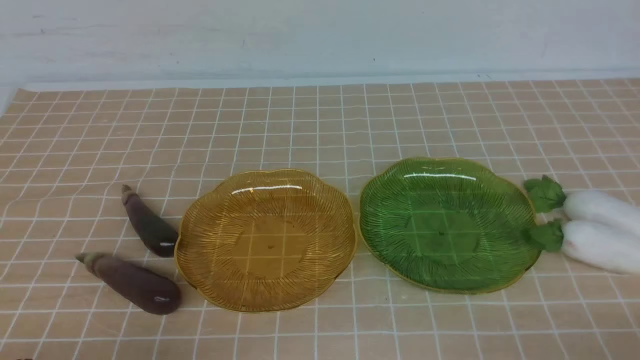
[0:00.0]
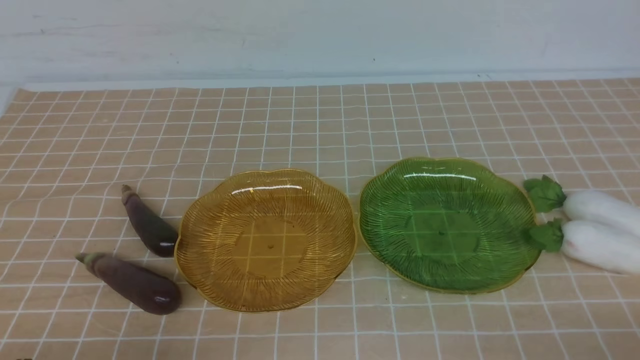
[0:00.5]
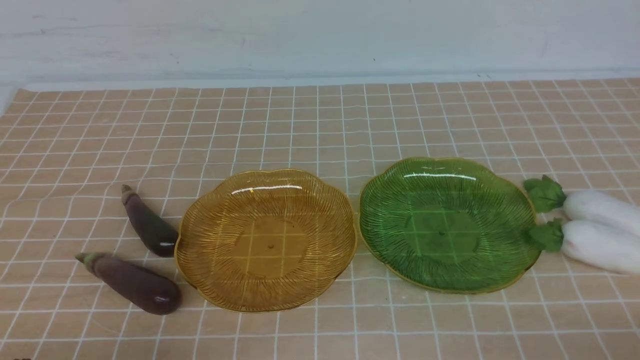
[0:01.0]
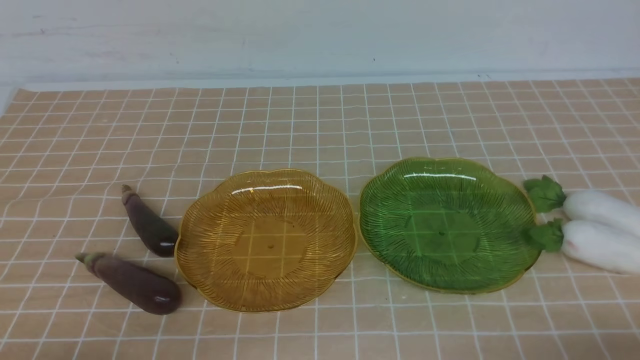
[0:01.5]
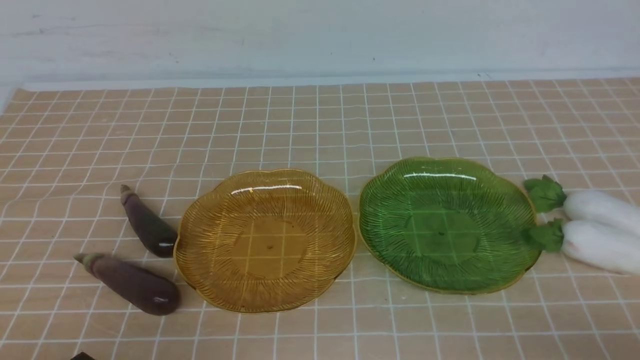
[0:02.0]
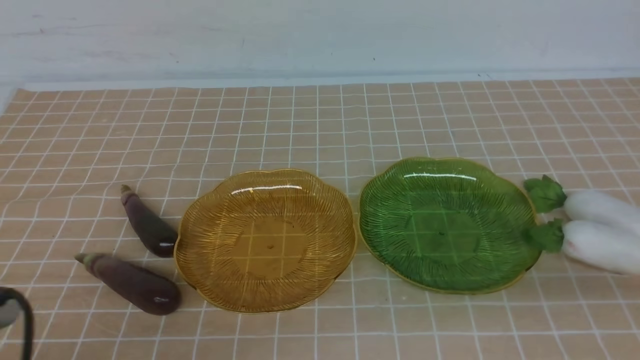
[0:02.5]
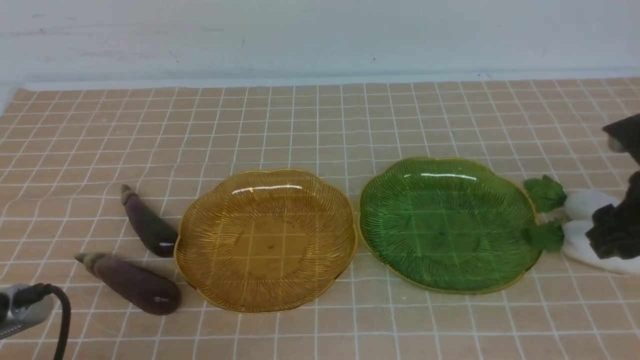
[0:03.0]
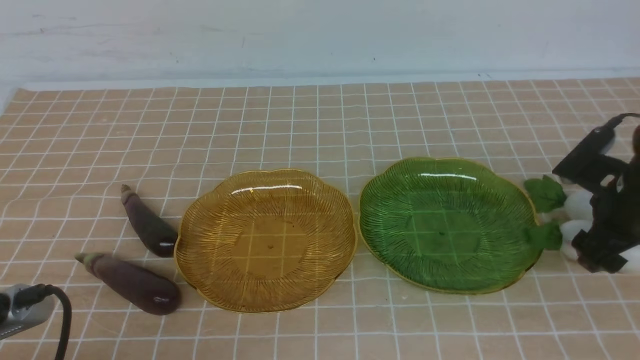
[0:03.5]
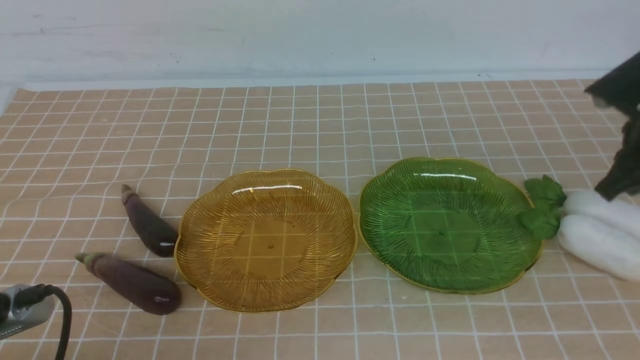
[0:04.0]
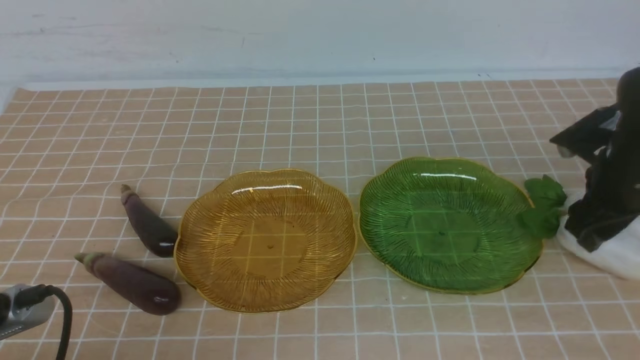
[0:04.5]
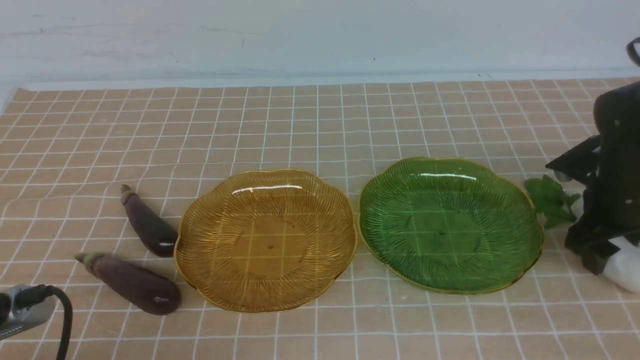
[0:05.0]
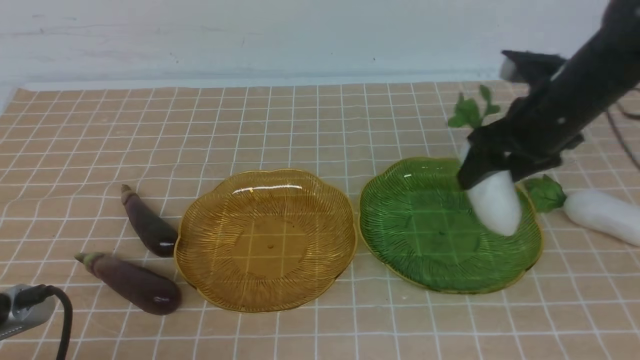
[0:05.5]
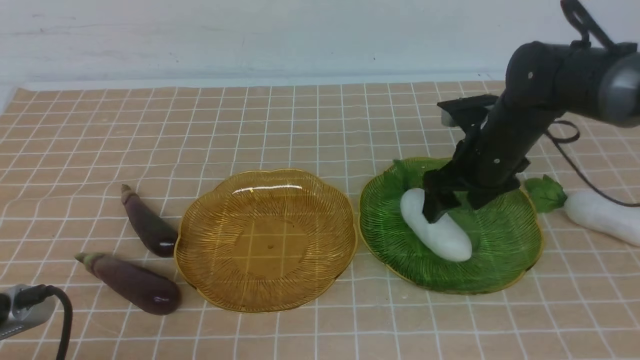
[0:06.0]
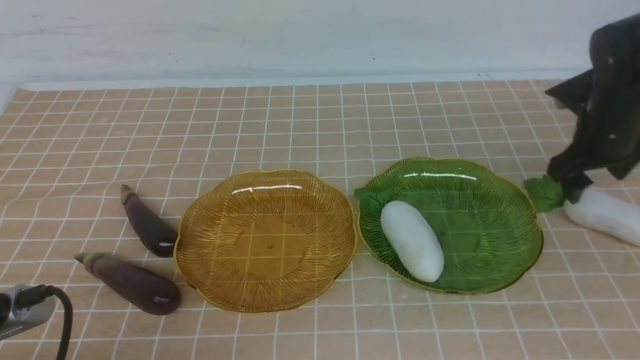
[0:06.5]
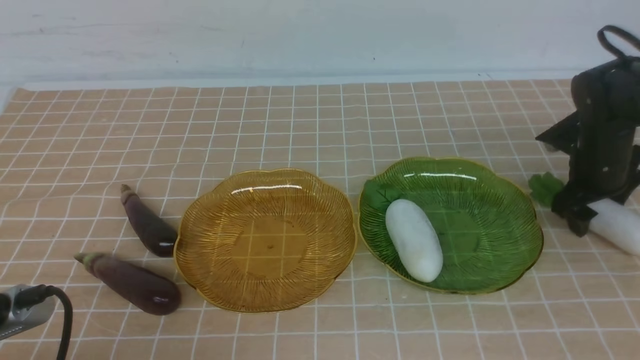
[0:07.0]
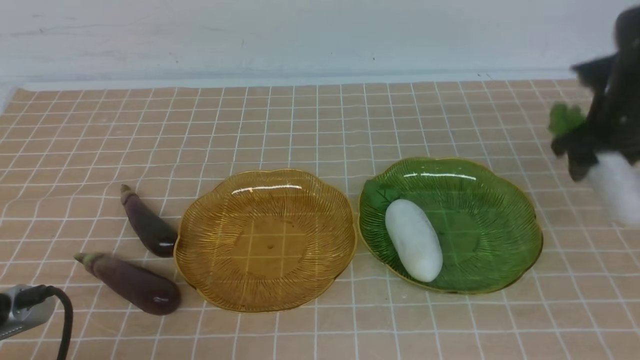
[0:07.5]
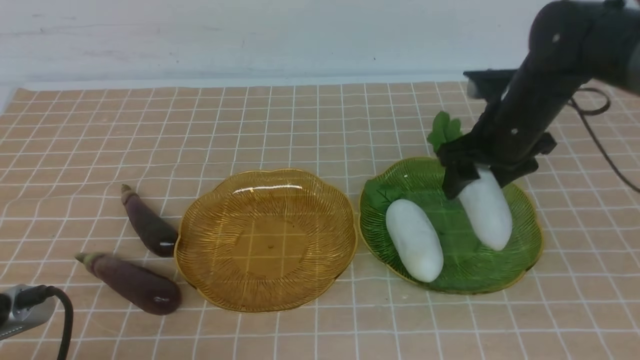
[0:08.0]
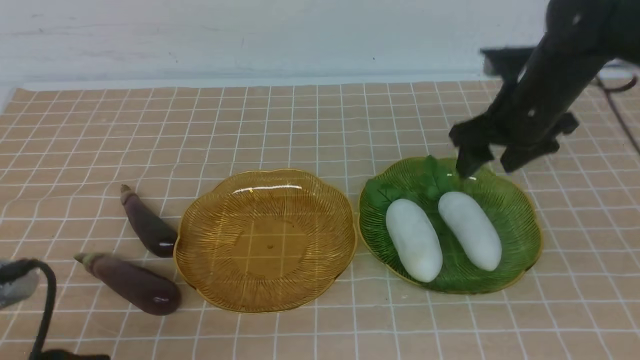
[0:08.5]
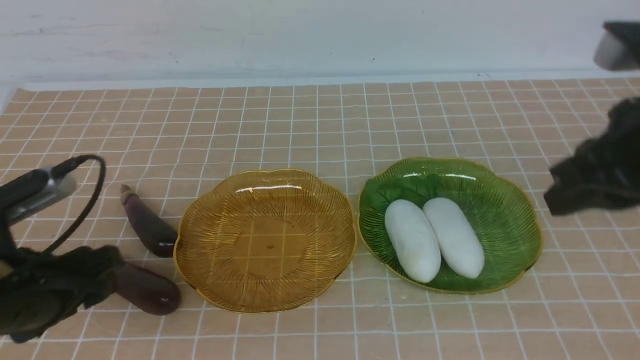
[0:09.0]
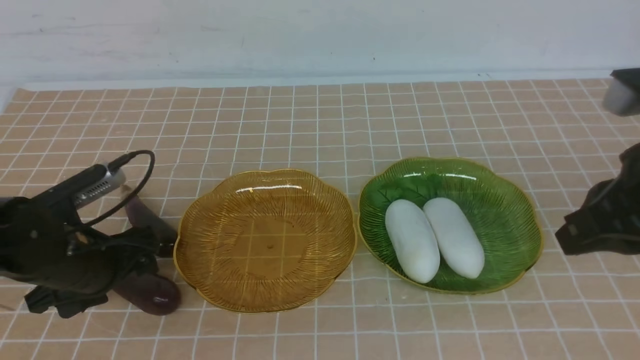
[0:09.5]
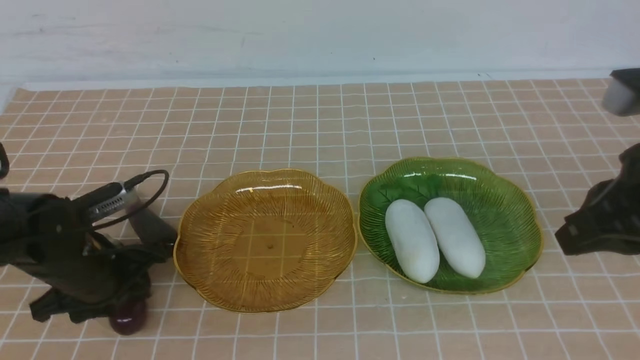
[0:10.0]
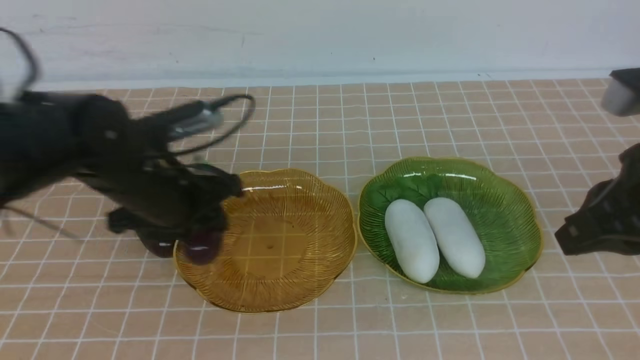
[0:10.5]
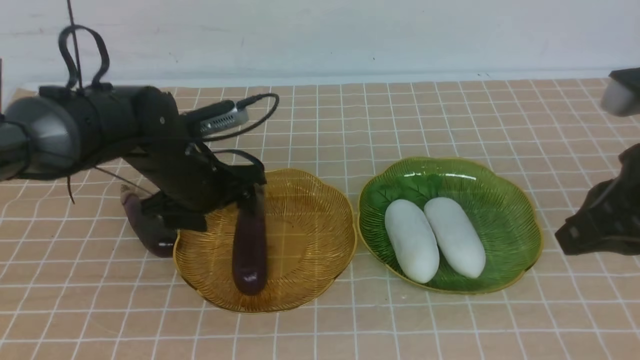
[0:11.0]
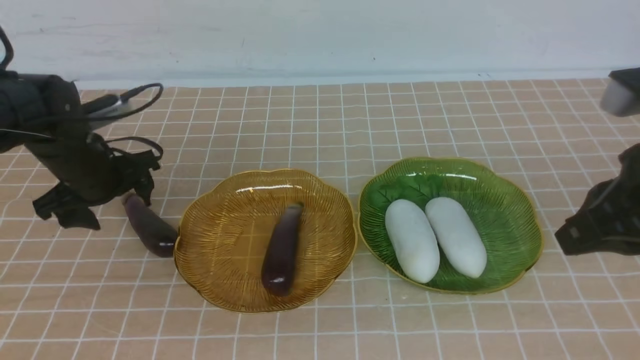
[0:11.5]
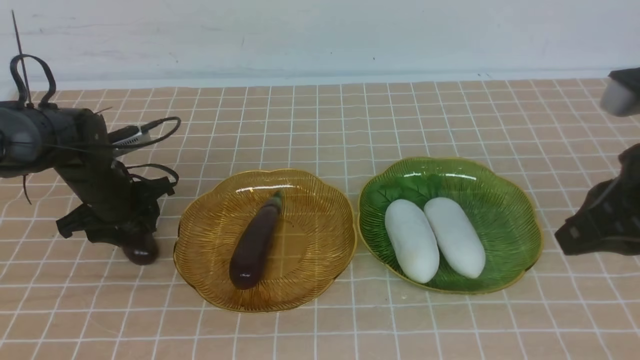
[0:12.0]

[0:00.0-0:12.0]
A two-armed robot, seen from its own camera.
Step, 0:00.0 to 0:08.0: use the right arm to grab a radish and put it into the right plate.
0:02.0 to 0:04.0: The right gripper travels forward by about 30 cm, and opens, then closes once more.
0:04.0 to 0:06.0: The right gripper moves to the left and forward, roughly 10 cm, and opens up.
0:06.0 to 0:08.0: The right gripper moves roughly 10 cm to the right and comes back.
0:08.0 to 0:10.0: The left gripper goes approximately 20 cm forward, and opens, then closes once more. Meanwhile the right gripper goes about 20 cm backward and upward, and closes its fingers.
0:10.0 to 0:12.0: The left gripper travels forward by roughly 10 cm, moves some 5 cm to the right and comes back, and opens, then closes again.

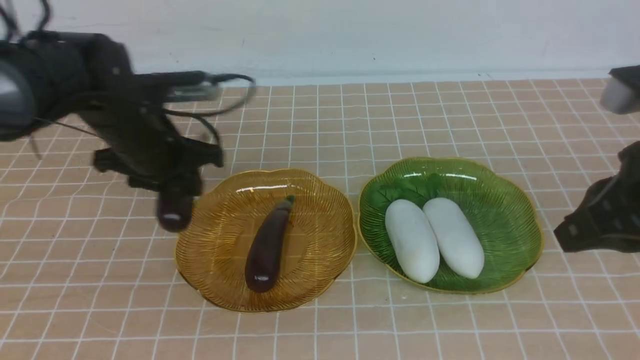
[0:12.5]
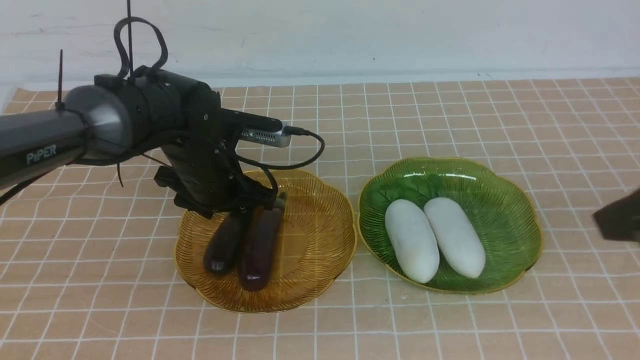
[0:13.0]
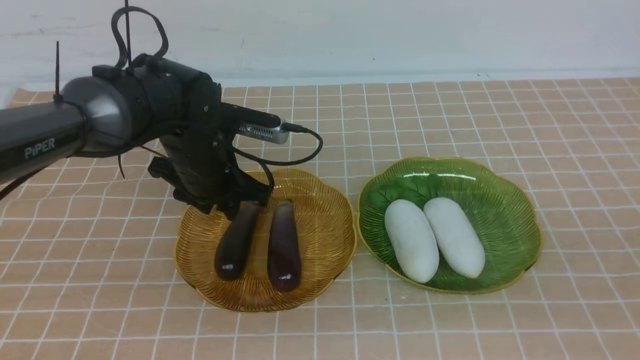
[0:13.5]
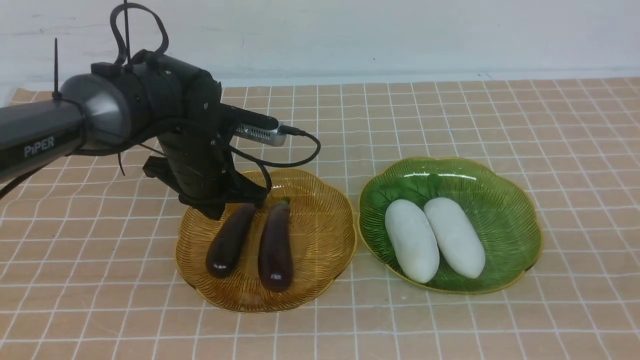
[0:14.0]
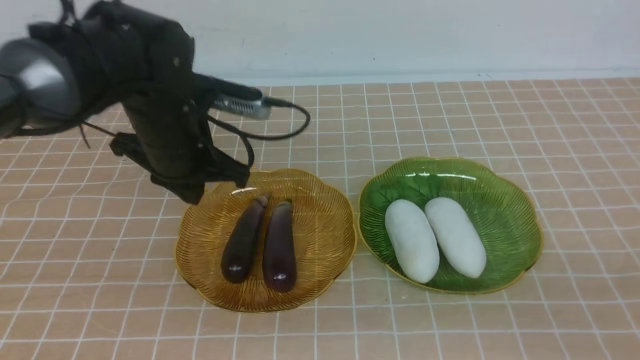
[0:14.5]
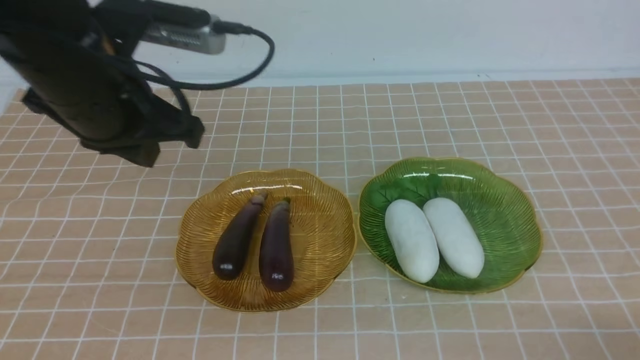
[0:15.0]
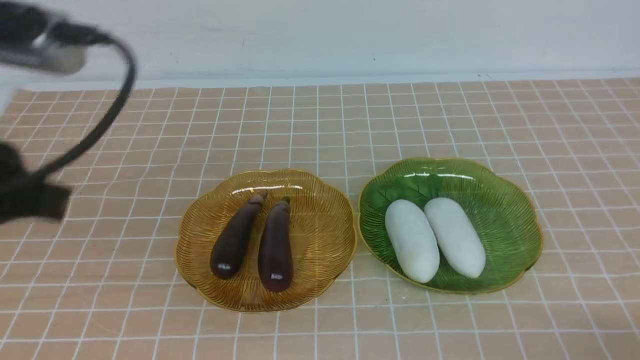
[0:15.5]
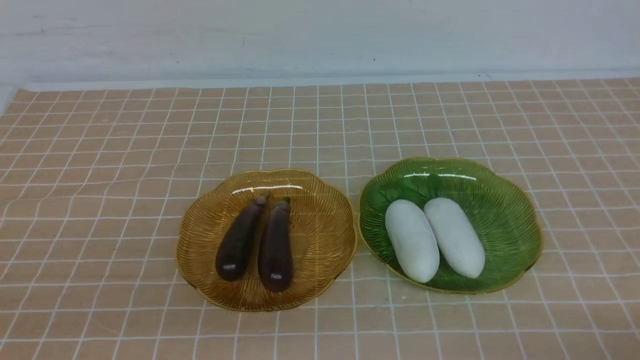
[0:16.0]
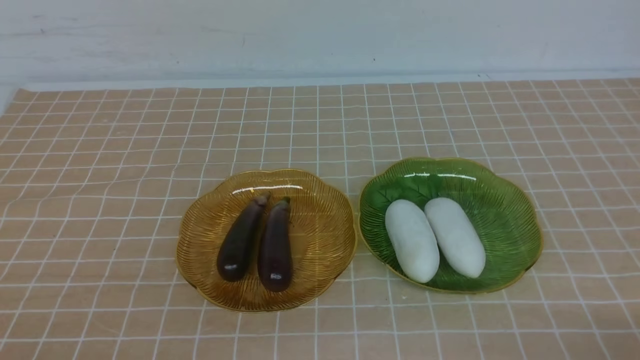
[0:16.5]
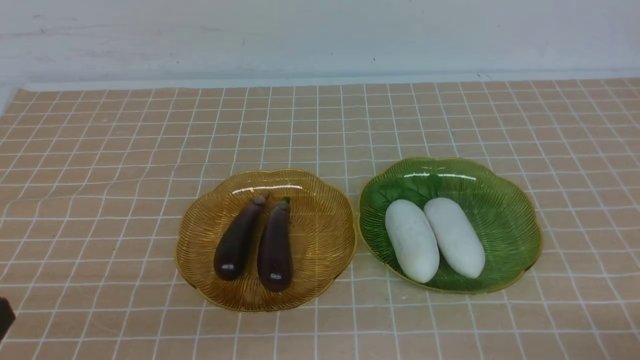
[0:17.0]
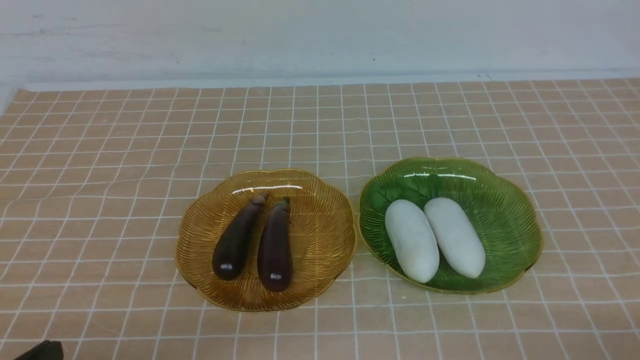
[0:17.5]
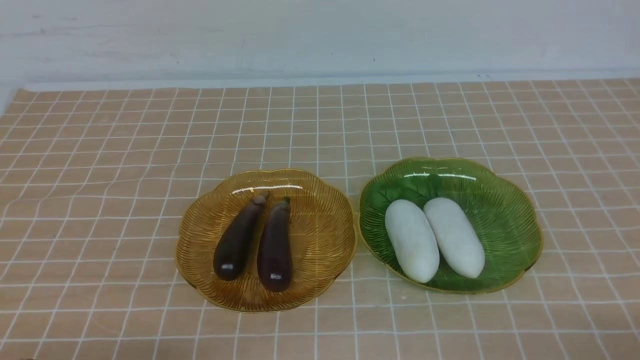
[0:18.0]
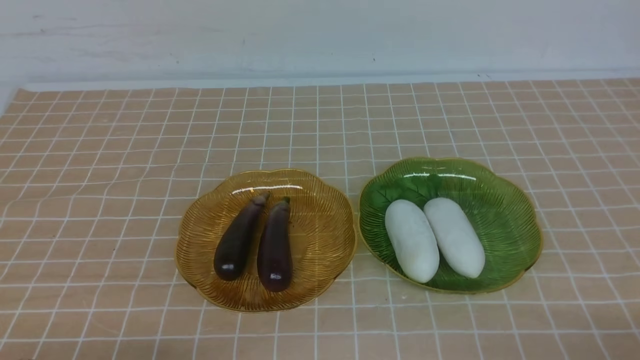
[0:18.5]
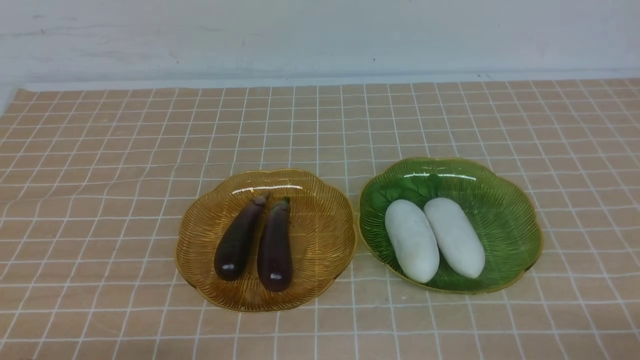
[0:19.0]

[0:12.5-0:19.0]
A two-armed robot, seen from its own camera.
0:12.5 to 0:14.5: The left gripper moves roughly 5 cm, and closes its fingers. The right gripper moves backward and downward, about 15 cm.
0:14.5 to 0:17.0: The right gripper moves downward, roughly 10 cm, while the left gripper shifts approximately 30 cm backward.
